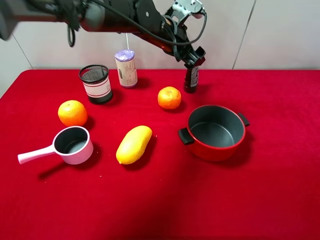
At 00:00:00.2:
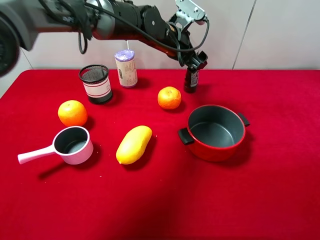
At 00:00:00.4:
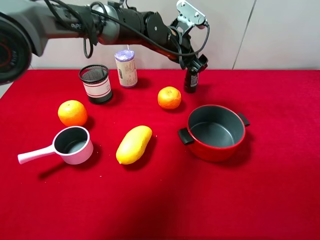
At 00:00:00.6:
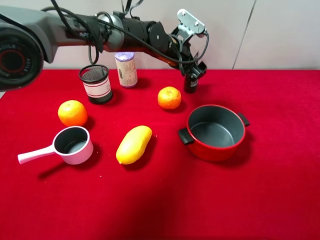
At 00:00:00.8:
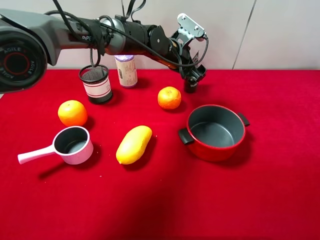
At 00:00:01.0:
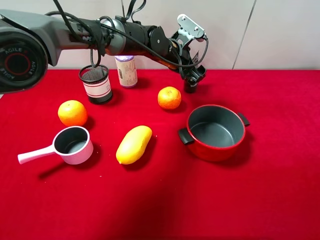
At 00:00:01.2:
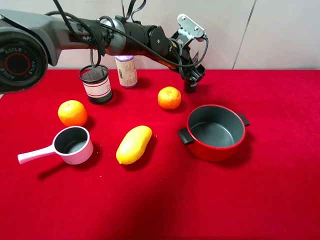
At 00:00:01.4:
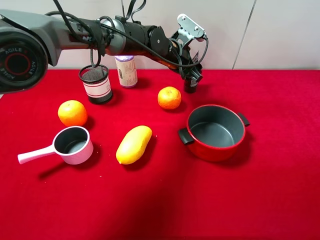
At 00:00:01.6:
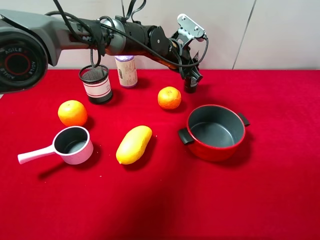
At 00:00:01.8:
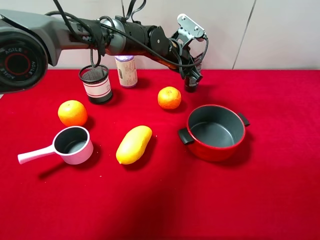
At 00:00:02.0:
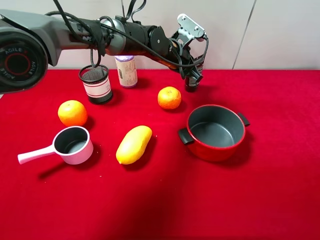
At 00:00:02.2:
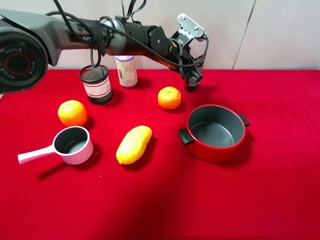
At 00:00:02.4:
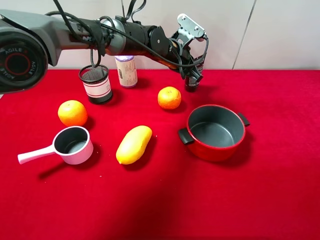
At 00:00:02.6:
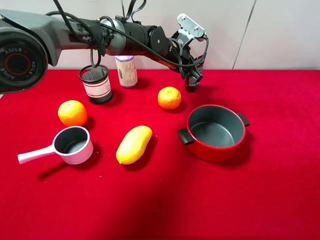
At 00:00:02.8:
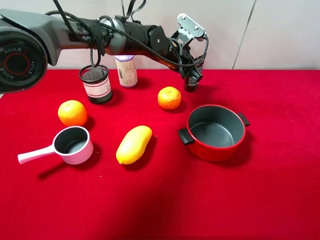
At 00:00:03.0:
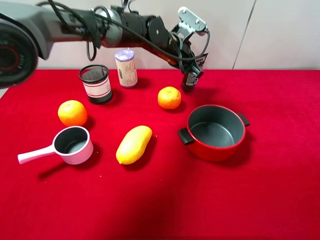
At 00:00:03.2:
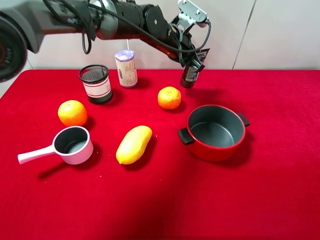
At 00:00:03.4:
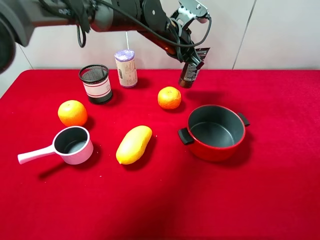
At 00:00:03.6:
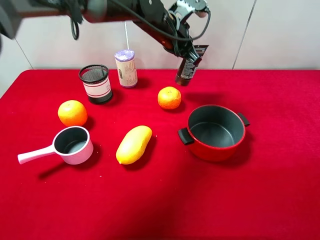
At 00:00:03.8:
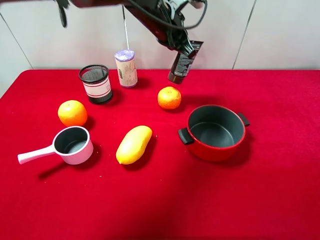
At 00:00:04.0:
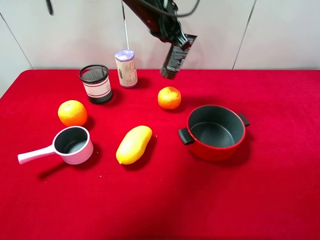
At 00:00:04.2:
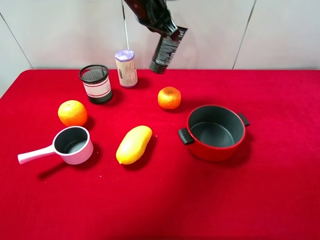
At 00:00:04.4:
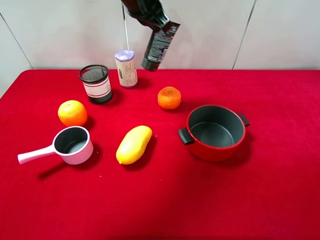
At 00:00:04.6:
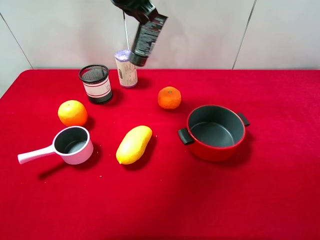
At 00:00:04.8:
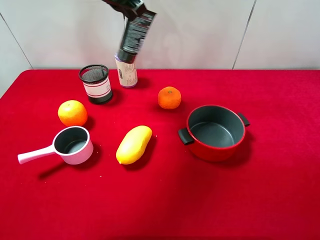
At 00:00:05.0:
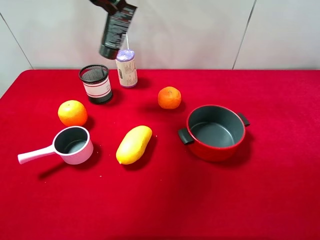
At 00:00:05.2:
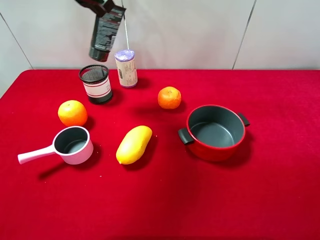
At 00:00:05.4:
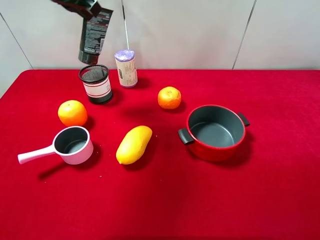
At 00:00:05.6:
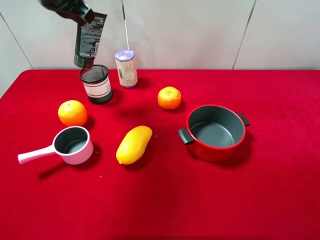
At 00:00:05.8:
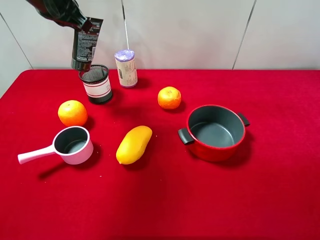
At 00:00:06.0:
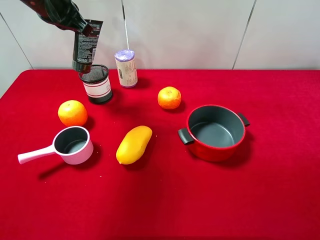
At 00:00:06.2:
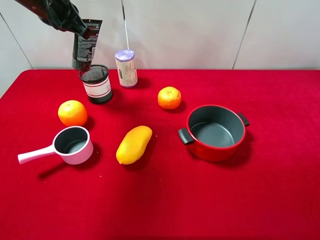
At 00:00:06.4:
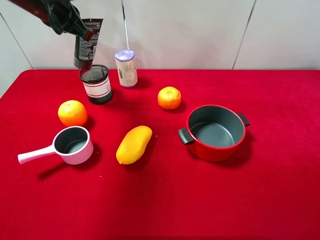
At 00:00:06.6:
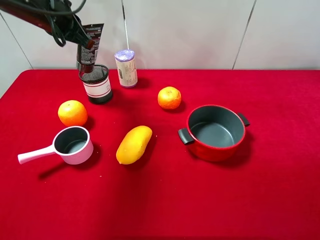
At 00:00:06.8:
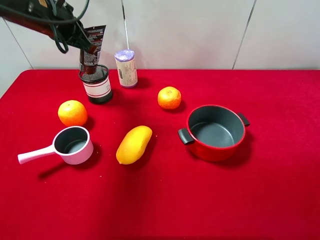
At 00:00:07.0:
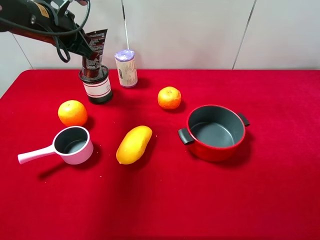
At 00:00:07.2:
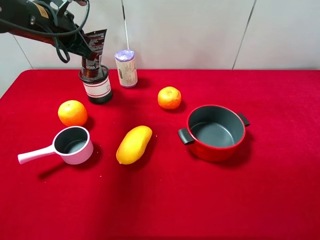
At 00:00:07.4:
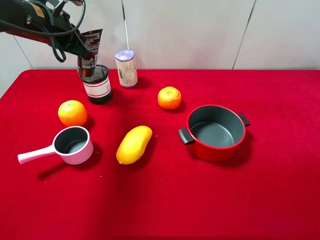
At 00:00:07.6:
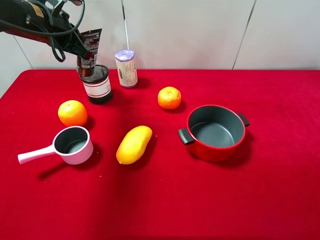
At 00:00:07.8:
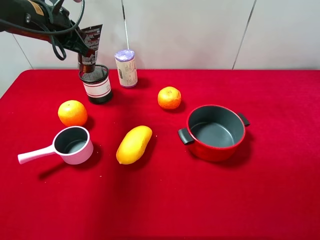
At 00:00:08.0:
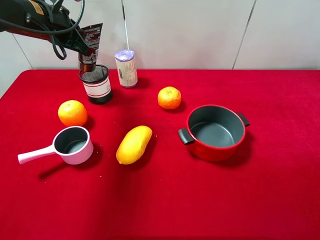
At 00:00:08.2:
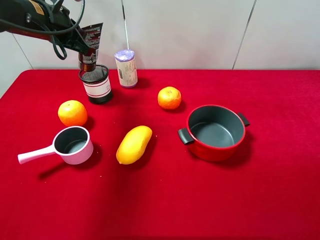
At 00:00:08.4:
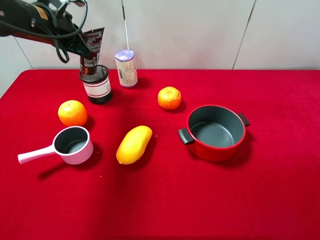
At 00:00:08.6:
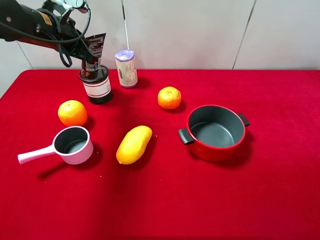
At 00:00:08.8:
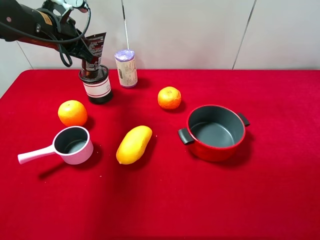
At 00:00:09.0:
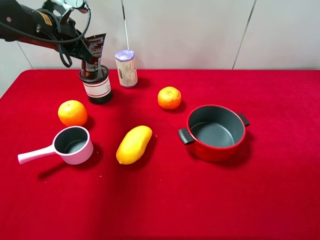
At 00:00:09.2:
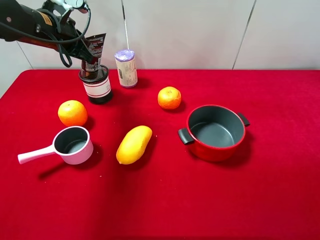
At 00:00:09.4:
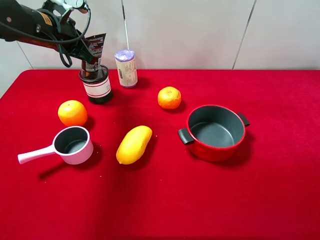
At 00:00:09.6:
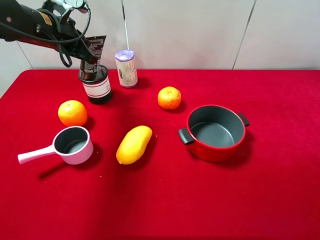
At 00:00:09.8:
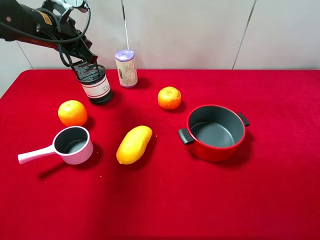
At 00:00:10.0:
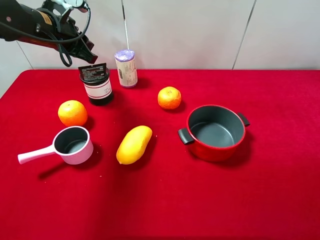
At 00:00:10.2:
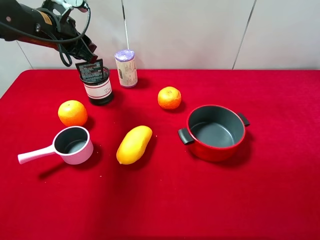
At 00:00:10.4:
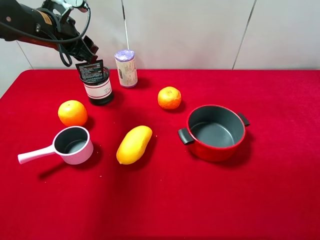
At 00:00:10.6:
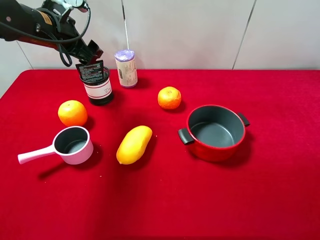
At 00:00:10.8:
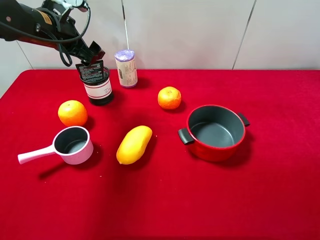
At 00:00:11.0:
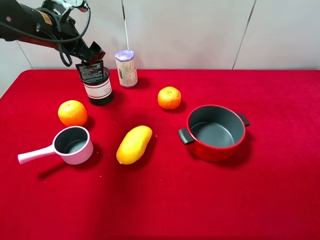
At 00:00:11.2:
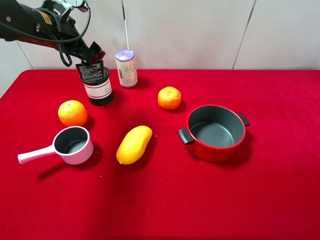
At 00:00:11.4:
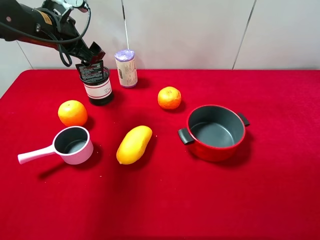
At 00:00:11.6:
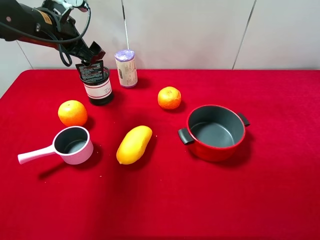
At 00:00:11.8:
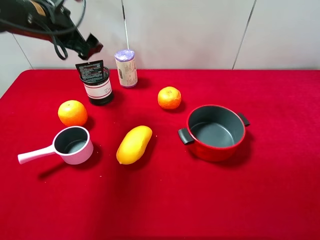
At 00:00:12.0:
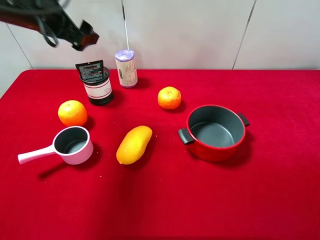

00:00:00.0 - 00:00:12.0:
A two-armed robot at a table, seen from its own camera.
Task of the whole recording: pick up an item with a gripper and place it in a random container on the desktop.
00:00:00.0 - 00:00:01.6: The left gripper is displaced downward by approximately 5 cm, and closes.
00:00:01.6 - 00:00:03.0: The left gripper closes up.
00:00:03.0 - 00:00:04.4: The left gripper goes some 15 cm upward and to the left.
00:00:04.4 - 00:00:06.0: The left gripper shifts about 15 cm to the left.
00:00:06.0 - 00:00:07.6: The left gripper moves downward, some 5 cm.
00:00:07.6 - 00:00:09.0: The grippers stay close to where they were, moving slightly.
00:00:09.0 - 00:00:10.4: The left gripper opens.
00:00:10.4 - 00:00:12.0: The left gripper is displaced upward by some 5 cm, and opens up.

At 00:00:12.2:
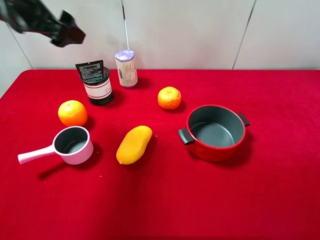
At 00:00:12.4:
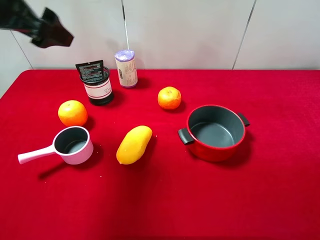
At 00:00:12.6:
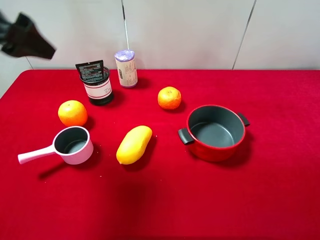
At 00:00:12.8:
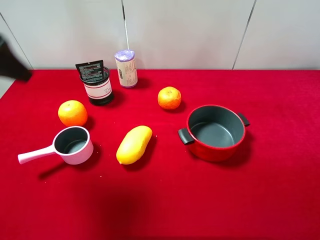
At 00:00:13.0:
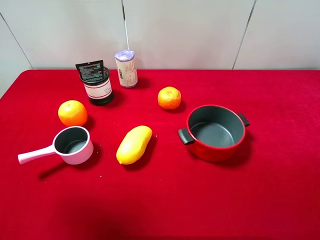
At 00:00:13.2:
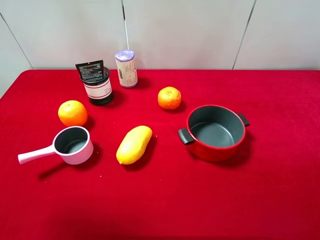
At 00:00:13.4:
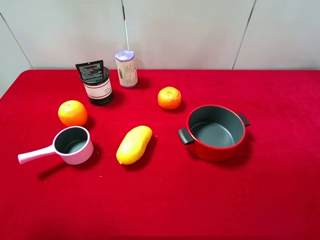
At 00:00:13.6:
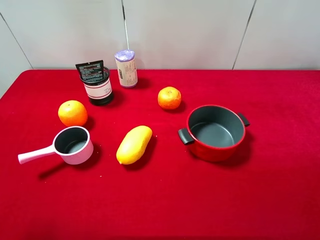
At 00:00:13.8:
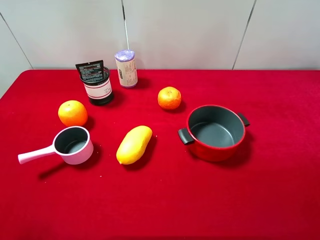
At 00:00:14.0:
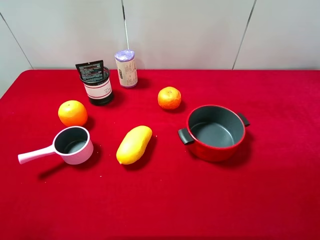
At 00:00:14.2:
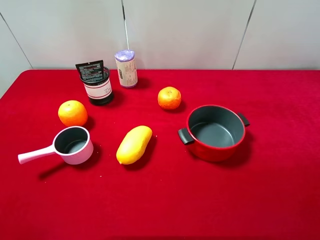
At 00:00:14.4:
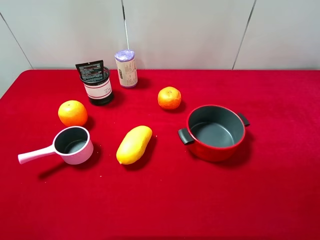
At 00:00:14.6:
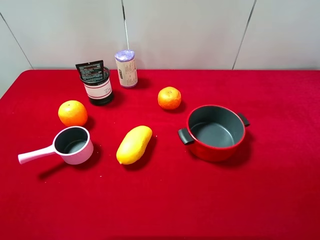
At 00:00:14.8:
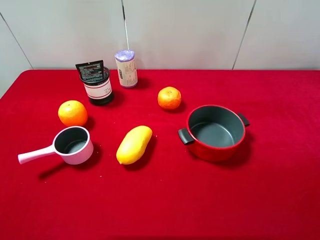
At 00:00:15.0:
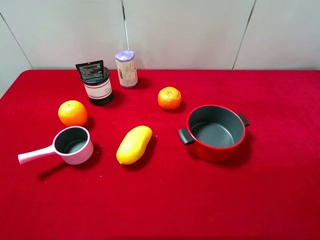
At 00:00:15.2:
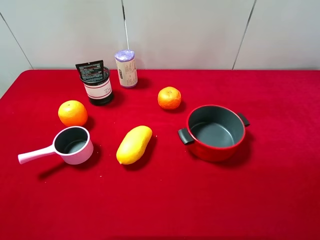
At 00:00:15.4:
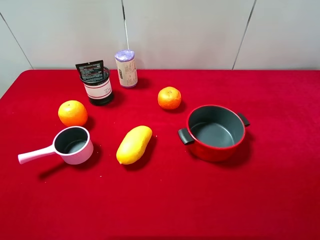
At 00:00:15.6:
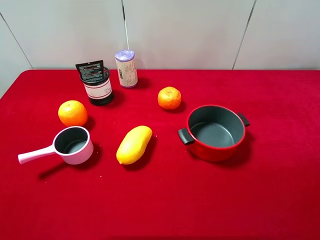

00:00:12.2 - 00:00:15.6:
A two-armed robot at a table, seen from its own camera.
Task of the whole recording: pick up an item with a gripper and place it in a random container on the desktop.
00:00:12.2 - 00:00:13.8: The left gripper travels backward by roughly 25 cm.
